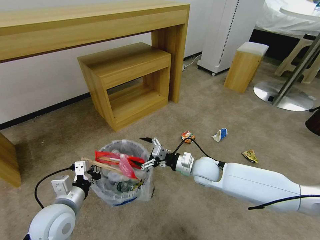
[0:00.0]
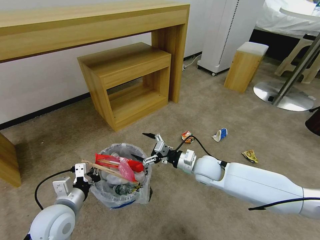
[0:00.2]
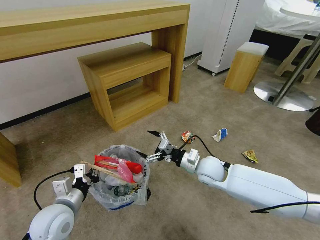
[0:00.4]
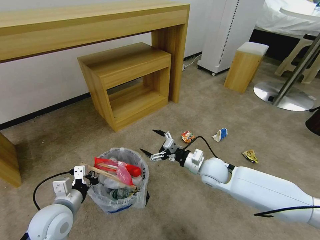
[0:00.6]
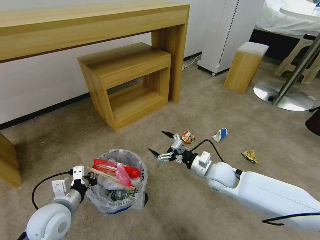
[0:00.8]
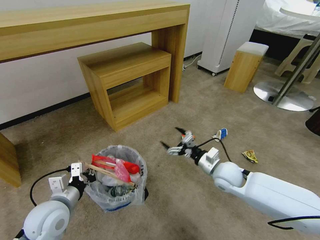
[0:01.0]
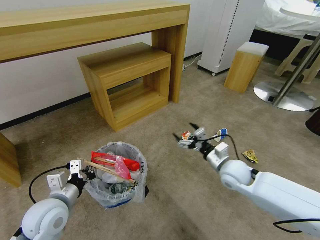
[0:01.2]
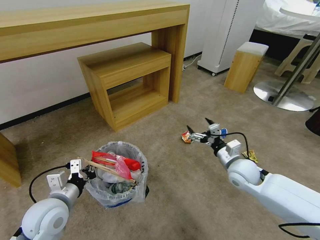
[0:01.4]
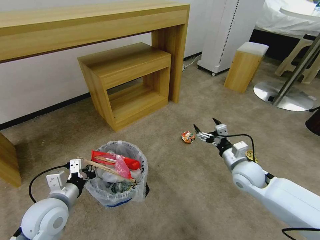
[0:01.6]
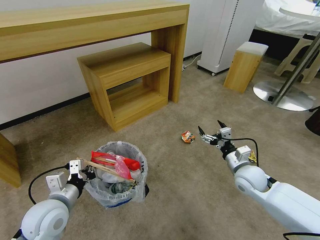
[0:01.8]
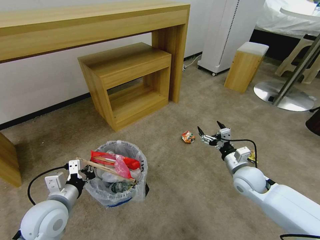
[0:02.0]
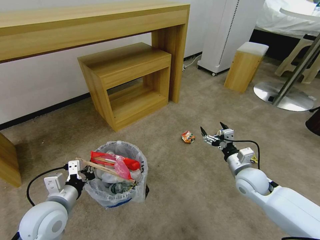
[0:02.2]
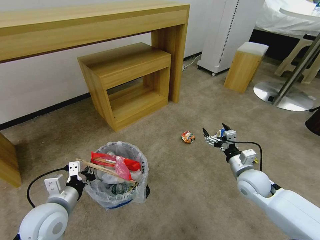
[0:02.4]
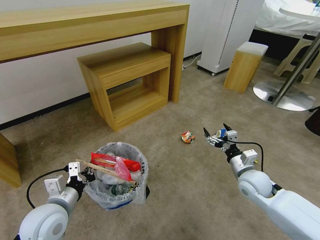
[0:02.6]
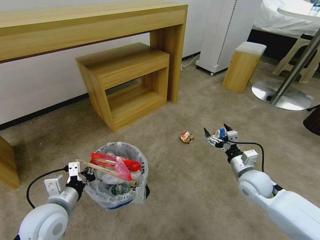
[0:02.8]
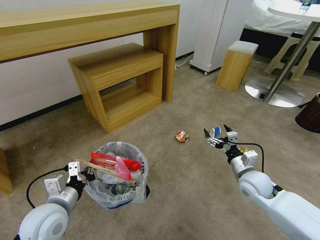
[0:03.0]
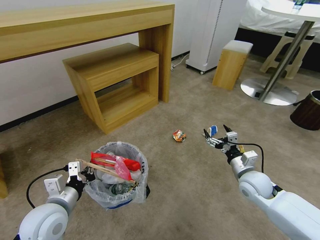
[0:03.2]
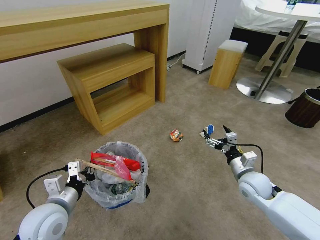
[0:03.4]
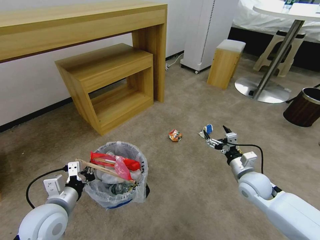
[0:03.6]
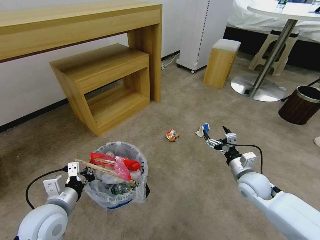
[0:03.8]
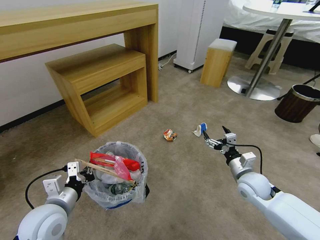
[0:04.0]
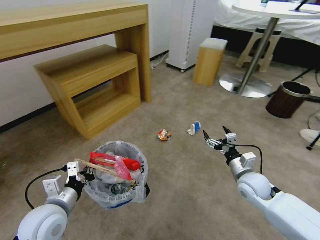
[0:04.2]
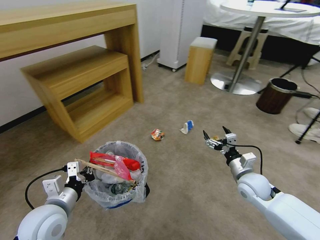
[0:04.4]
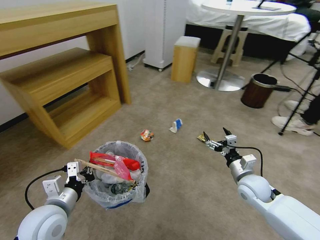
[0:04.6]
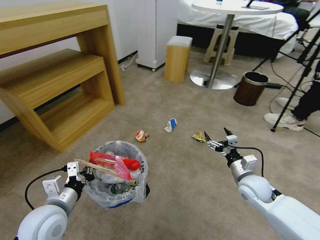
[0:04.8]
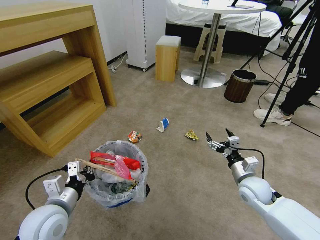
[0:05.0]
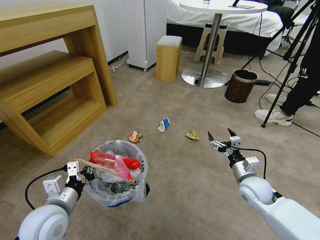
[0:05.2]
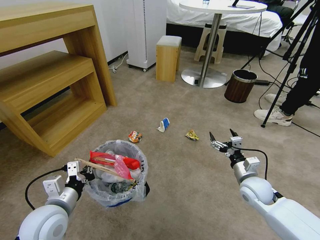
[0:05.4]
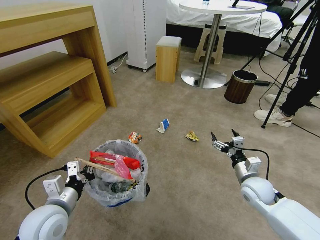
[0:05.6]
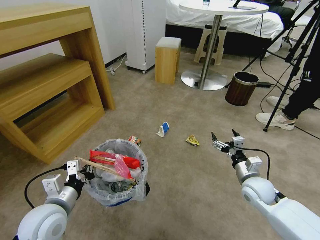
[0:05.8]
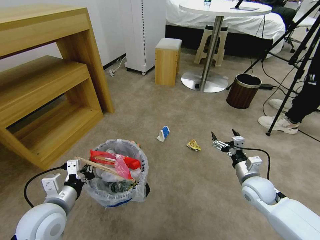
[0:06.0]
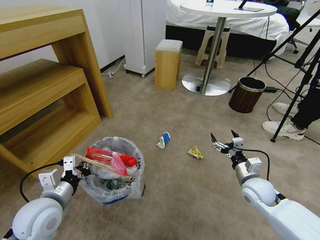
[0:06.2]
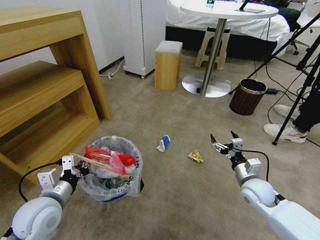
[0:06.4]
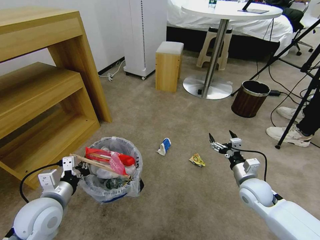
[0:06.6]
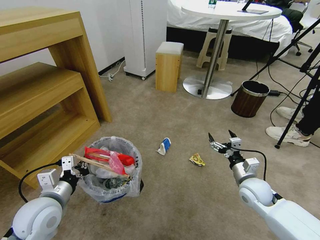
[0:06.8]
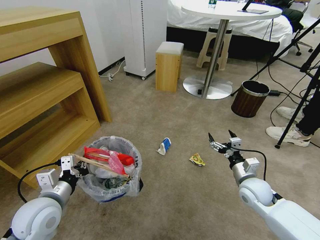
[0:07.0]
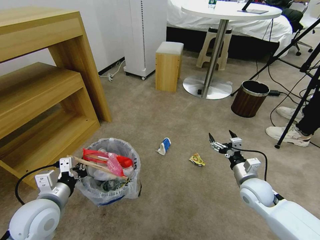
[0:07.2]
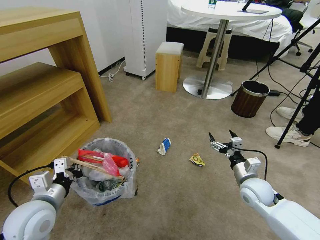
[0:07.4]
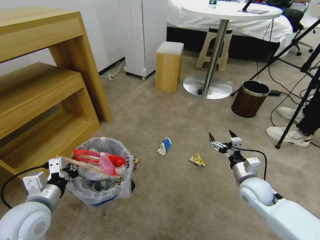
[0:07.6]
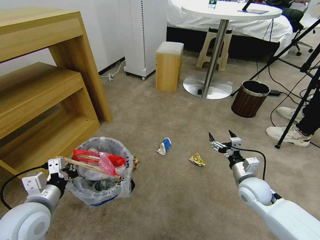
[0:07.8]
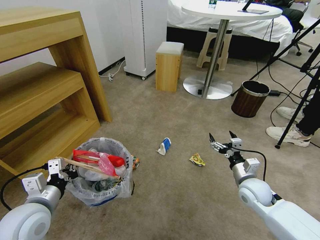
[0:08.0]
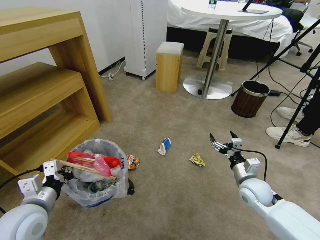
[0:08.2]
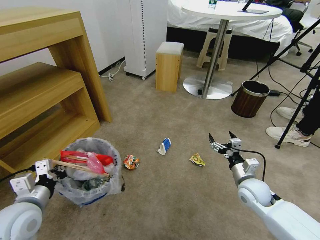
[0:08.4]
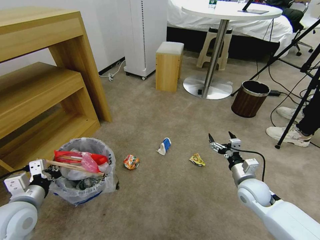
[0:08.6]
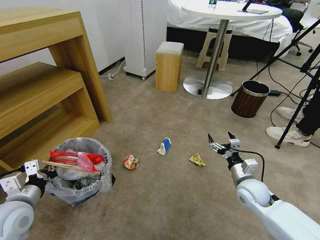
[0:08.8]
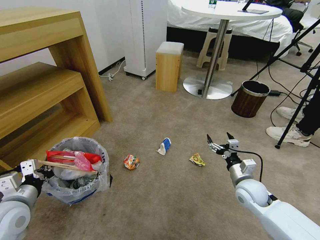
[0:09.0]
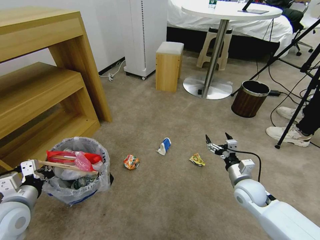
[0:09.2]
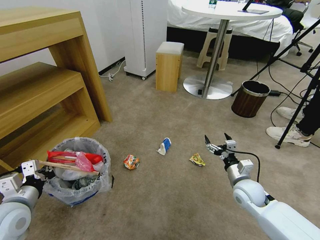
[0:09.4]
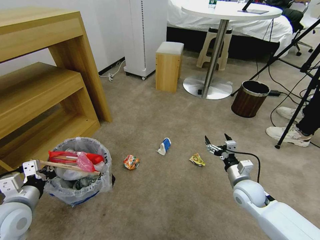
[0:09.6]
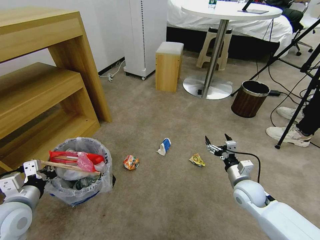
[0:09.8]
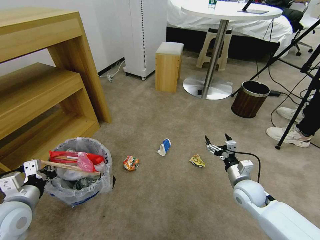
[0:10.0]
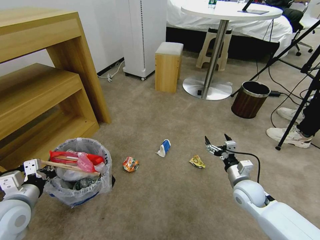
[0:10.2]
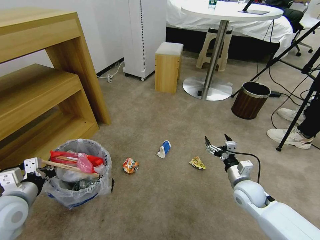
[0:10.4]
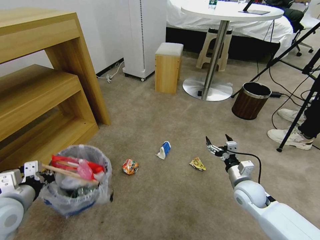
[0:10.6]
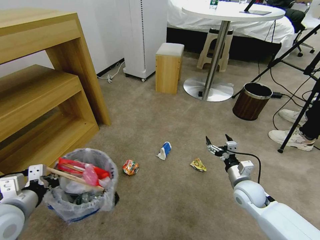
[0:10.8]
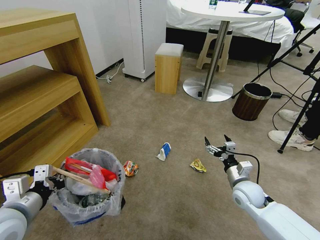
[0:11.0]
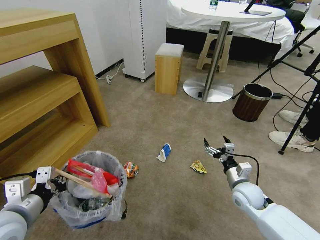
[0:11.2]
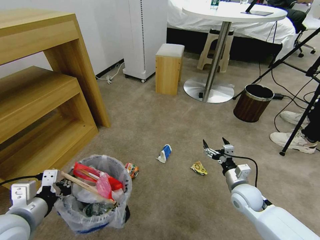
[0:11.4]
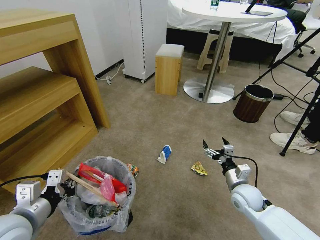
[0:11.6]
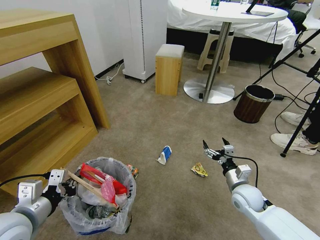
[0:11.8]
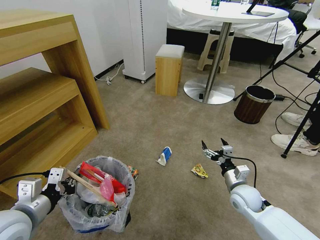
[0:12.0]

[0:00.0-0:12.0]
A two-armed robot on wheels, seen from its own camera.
Task of the whole recording: Pick up the trash bin and place the garbage on the floor into it.
0:00.0 to 0:01.6: The right gripper heads to the right, covering some 15 cm.
0:07.6 to 0:09.0: The left gripper travels to the left by some 5 cm.
0:09.0 to 0:10.4: The grippers make only small movements.
0:10.4 to 0:12.0: The left gripper shifts about 5 cm to the right.

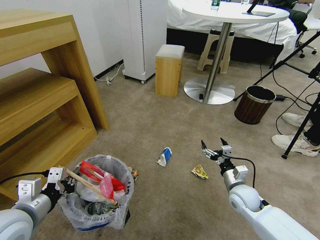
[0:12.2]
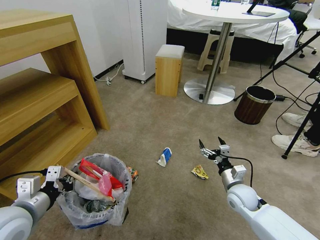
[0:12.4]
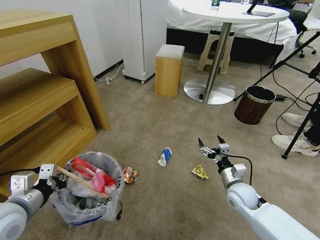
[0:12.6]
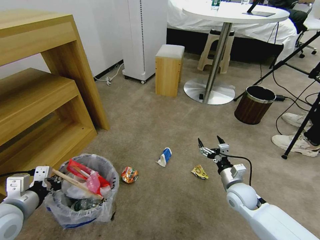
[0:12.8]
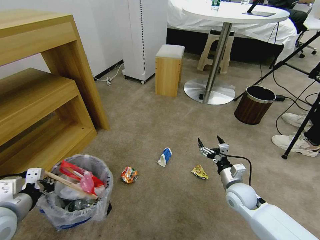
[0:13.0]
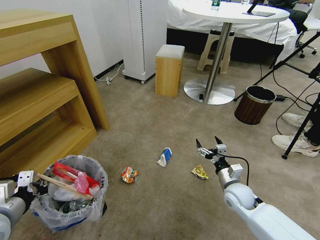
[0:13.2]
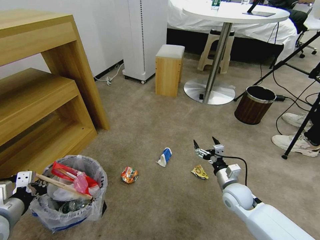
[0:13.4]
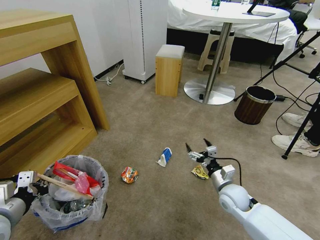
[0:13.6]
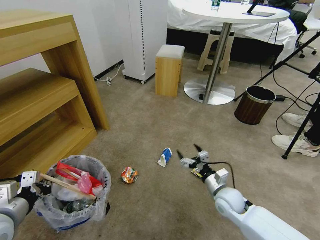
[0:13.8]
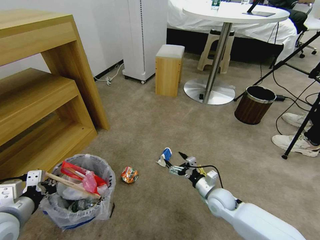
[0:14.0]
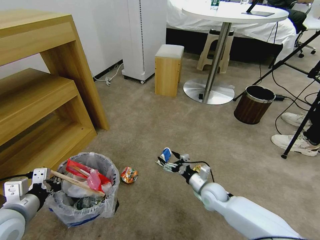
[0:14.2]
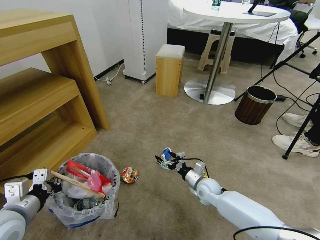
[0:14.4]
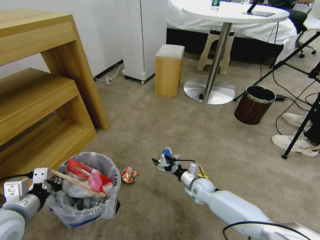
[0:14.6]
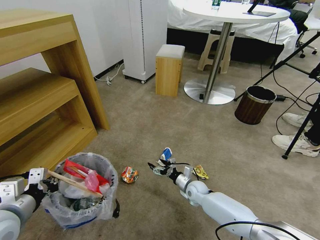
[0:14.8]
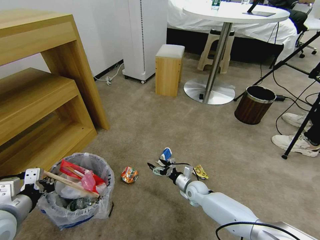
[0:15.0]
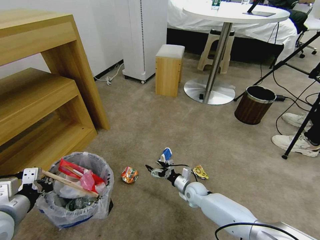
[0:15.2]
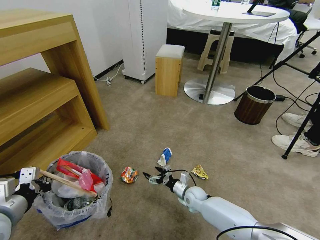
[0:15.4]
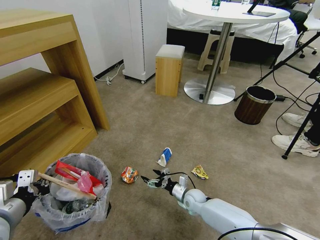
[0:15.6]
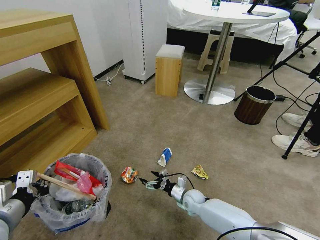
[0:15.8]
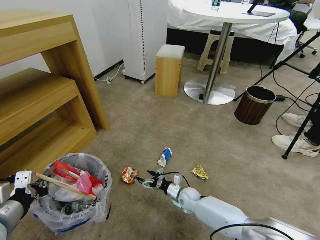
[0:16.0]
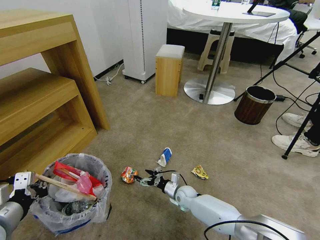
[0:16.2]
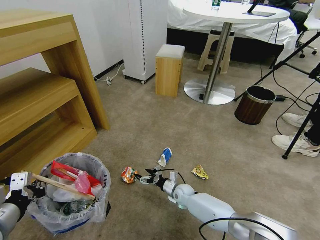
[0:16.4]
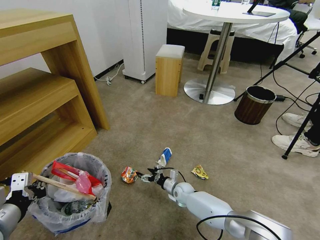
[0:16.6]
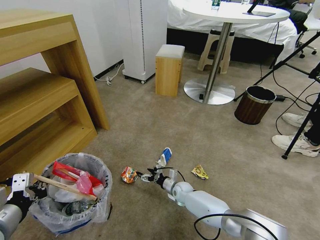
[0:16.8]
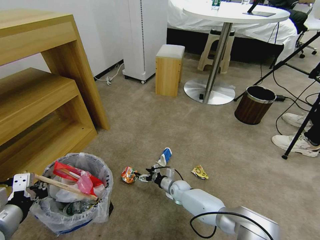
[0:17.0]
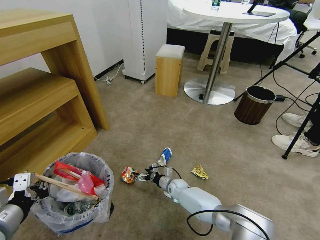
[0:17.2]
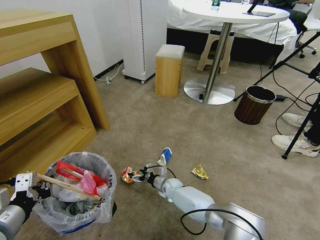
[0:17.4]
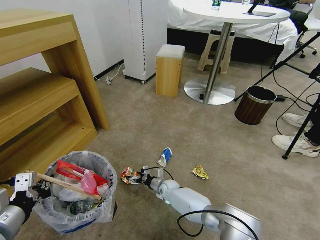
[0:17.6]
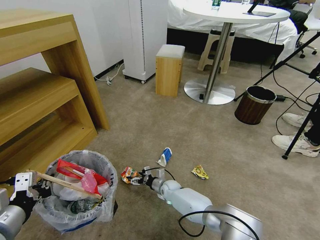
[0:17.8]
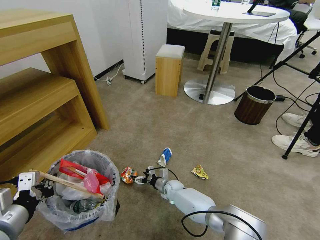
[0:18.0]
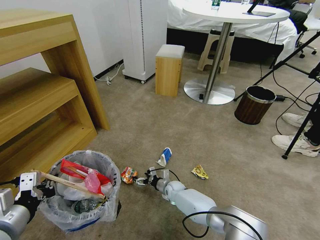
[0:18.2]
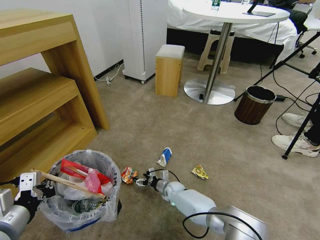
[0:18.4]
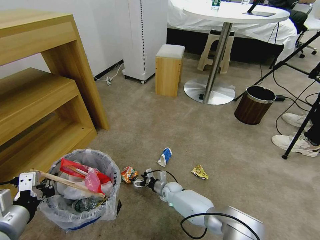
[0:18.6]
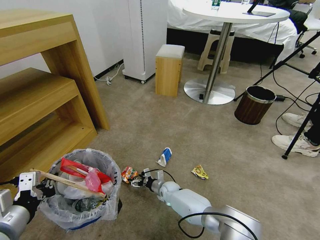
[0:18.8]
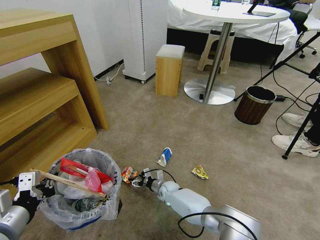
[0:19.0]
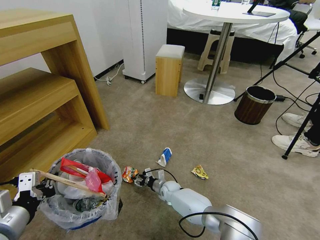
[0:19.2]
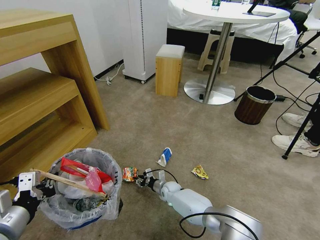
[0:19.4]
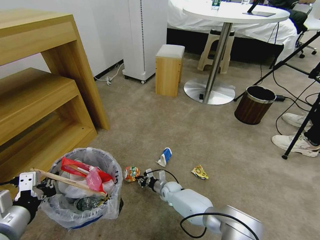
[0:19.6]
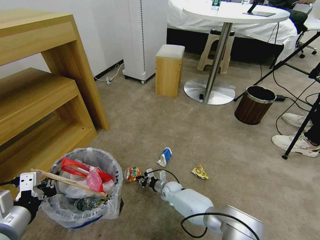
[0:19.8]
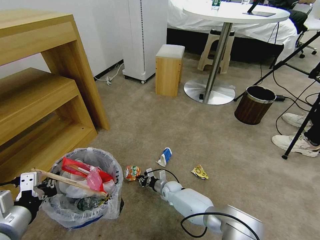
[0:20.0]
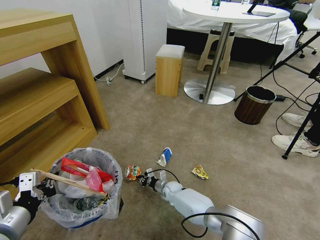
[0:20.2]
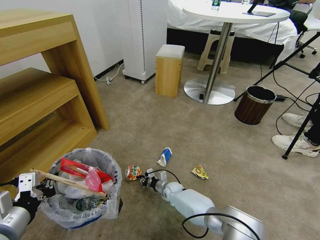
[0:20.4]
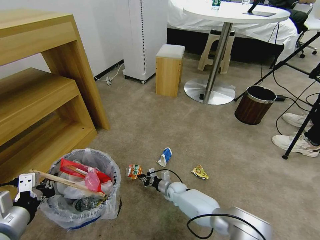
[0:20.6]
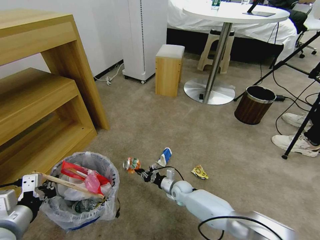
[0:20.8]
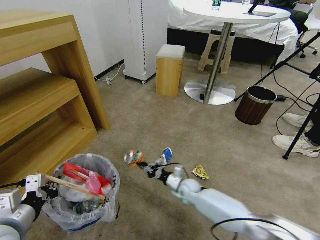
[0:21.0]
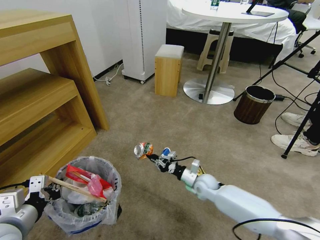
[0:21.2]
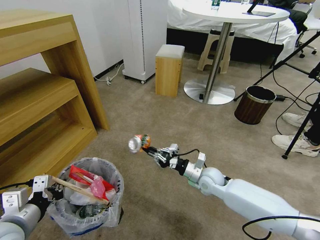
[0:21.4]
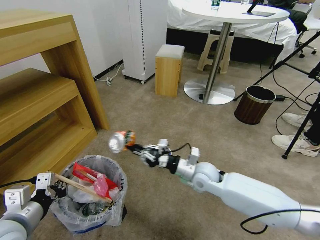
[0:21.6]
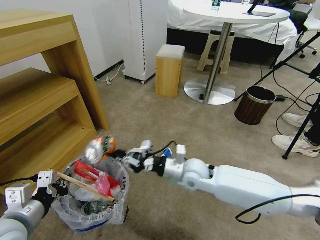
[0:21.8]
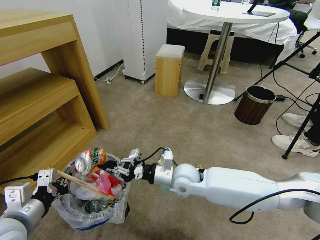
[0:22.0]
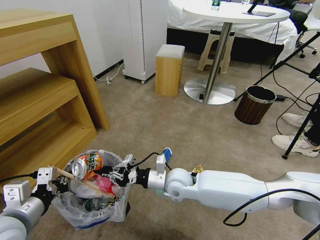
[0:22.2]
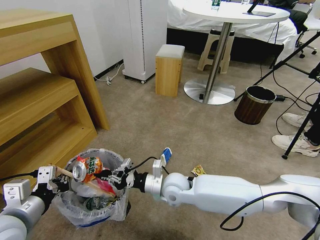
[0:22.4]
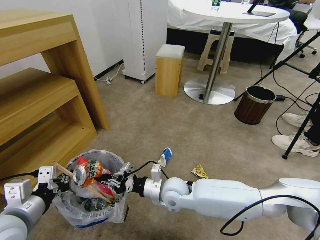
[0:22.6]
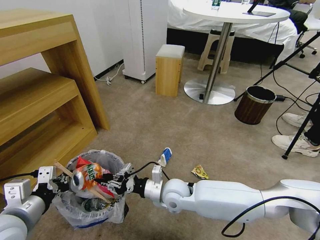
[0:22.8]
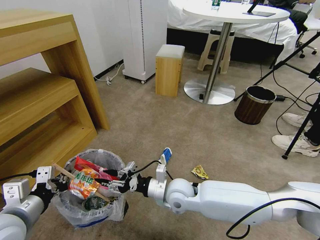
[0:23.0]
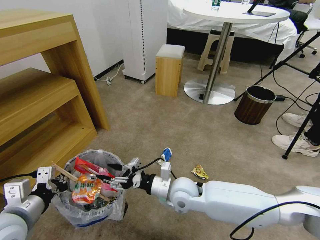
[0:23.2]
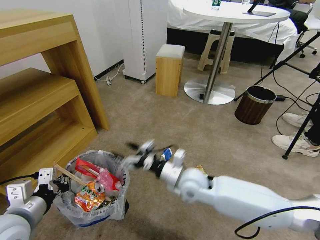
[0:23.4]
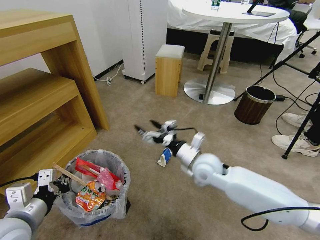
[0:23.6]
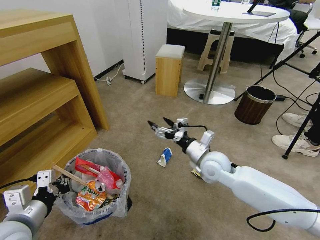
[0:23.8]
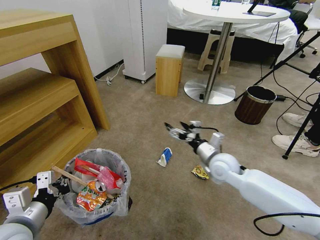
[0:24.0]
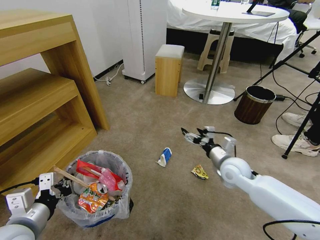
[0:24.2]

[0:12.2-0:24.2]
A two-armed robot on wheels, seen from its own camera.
Task of the whole recording: Pick up the trash bin and place the garbage on the floor into it.
0:12.2 to 0:13.8: The two grippers go roughly 5 cm to the left.
0:13.8 to 0:15.2: The right gripper heads downward, to the left and forward, covering about 15 cm.
0:15.2 to 0:16.6: The right gripper shifts by some 5 cm.
0:18.2 to 0:19.8: The right gripper closes its fingers.
0:19.8 to 0:21.2: The right gripper travels upward and to the right by approximately 20 cm.
0:21.2 to 0:22.6: The right gripper travels to the left, upward and backward by roughly 20 cm.
0:22.6 to 0:24.2: The right gripper is displaced to the right by about 20 cm, and opens.
